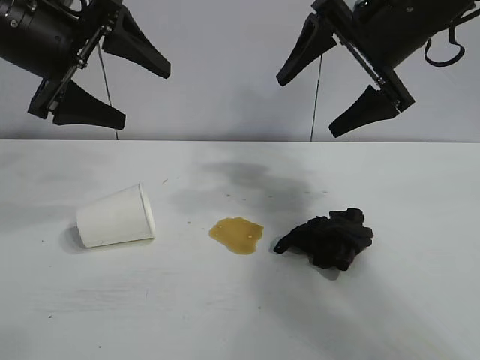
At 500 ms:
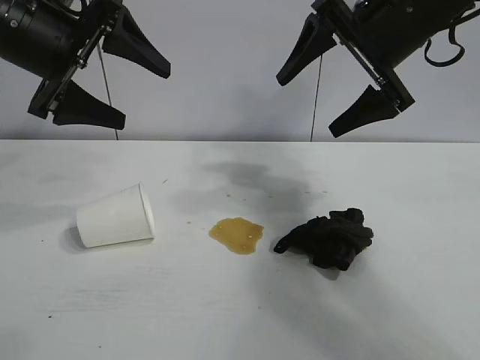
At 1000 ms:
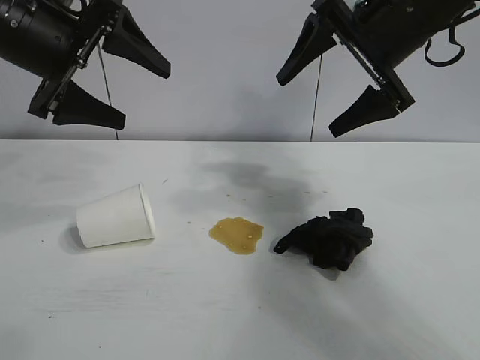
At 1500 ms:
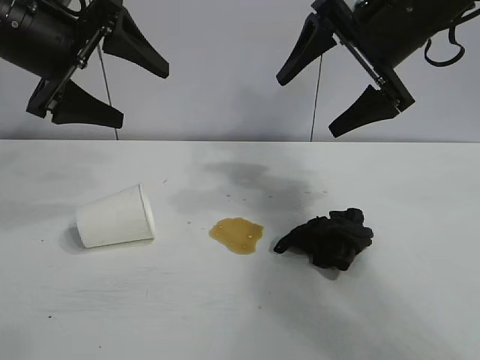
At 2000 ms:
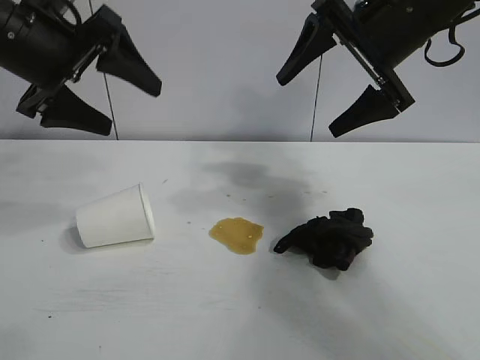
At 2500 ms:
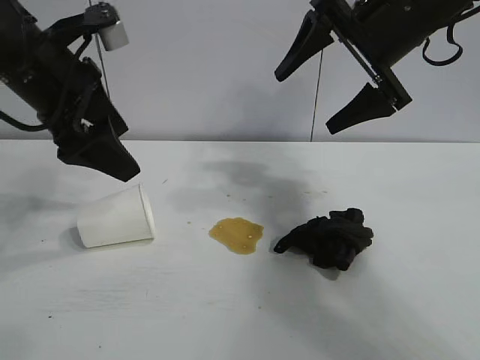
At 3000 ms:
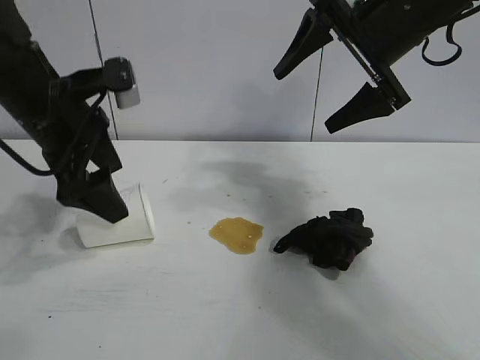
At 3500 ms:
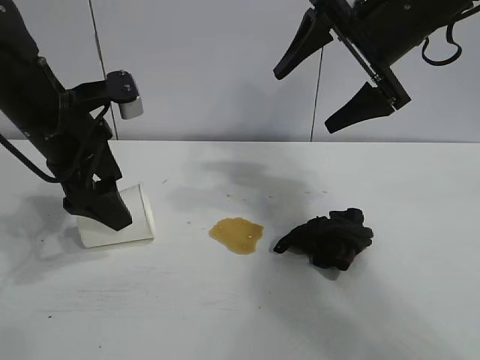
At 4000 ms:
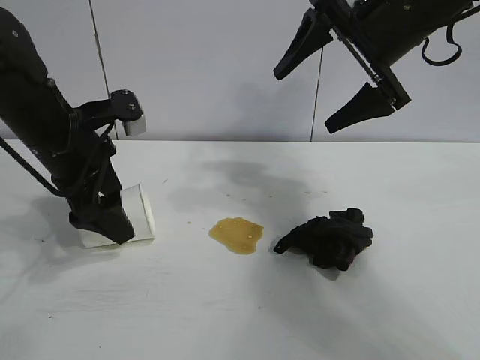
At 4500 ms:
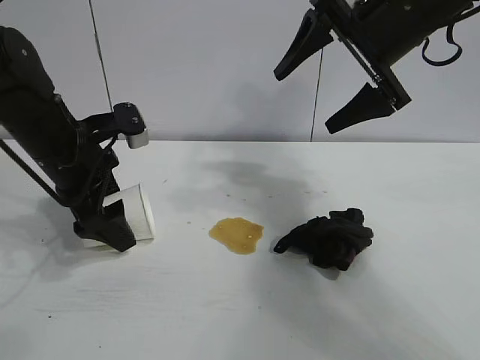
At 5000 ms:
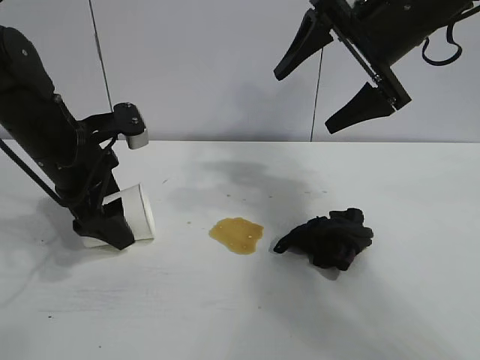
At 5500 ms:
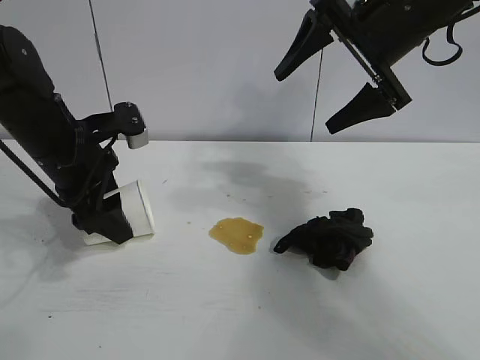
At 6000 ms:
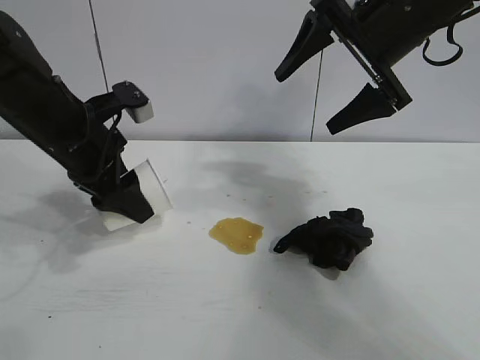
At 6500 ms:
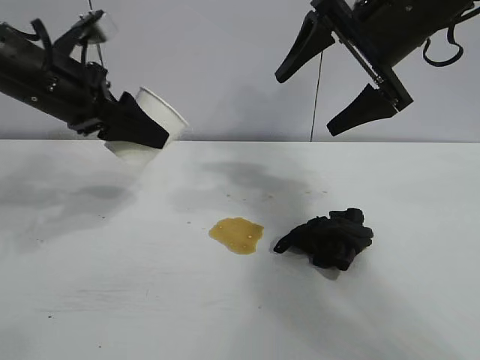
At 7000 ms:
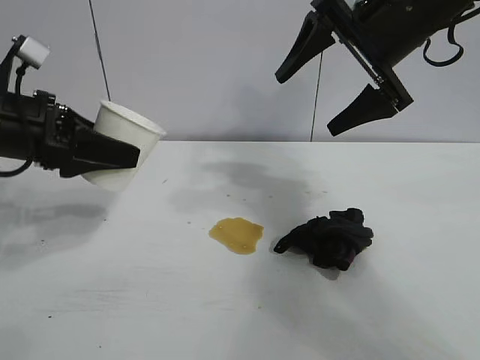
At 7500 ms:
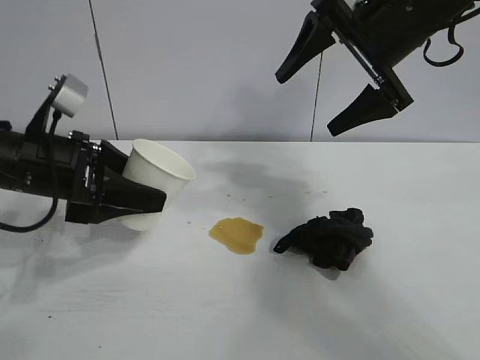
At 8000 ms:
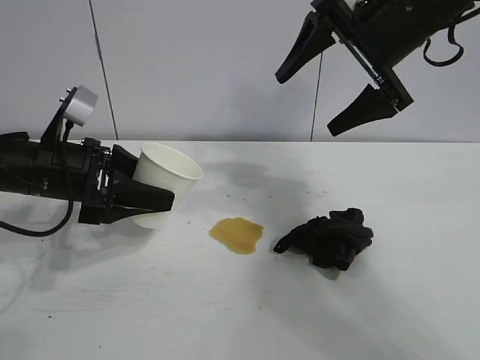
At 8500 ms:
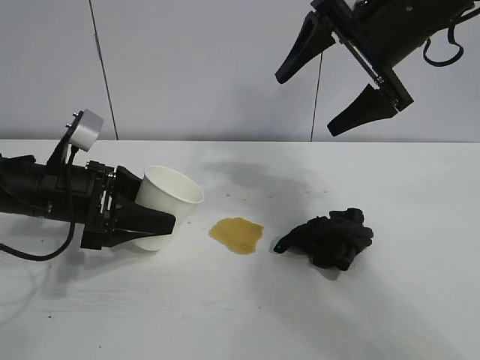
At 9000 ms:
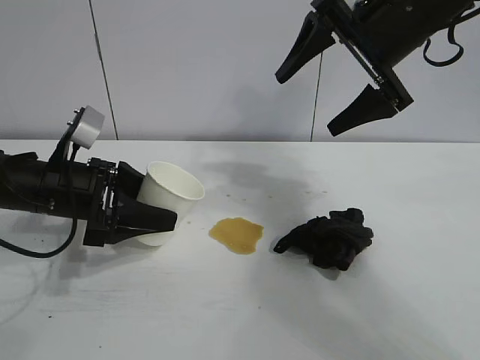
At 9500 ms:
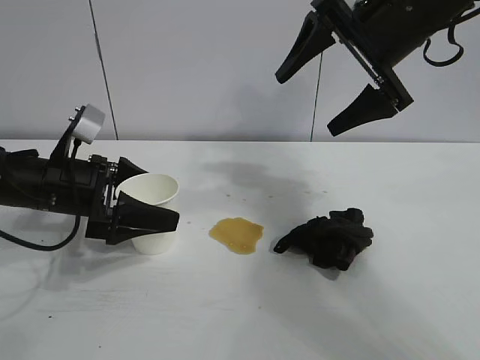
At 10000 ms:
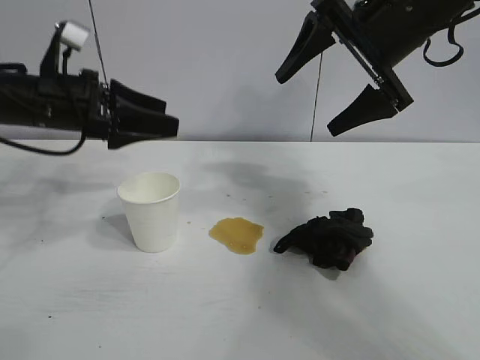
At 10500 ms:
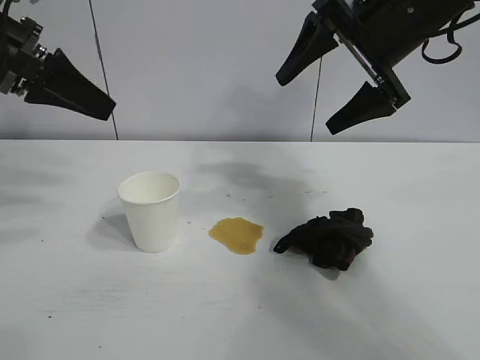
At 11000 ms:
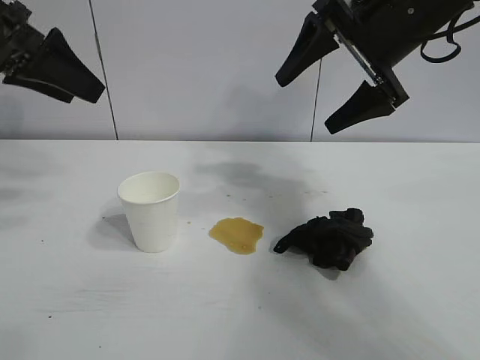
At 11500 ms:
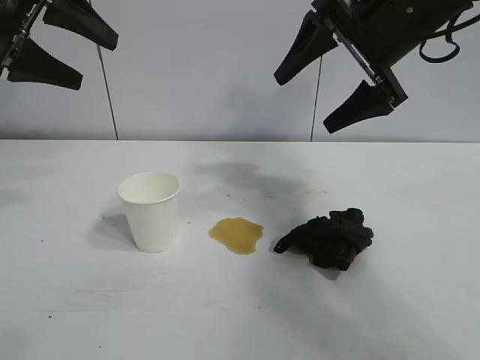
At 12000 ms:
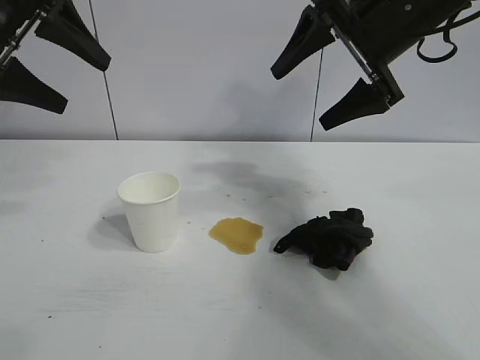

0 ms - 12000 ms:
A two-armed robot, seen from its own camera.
Task of the whole recording: the left gripper pick up the fallen cup and place it upright, the right gripper grasp the black rag and wipe the stain on the table, the right gripper put the black rag back in its original position.
Step, 1500 ms - 5000 ms: Grasp the paper cup with left gripper.
Step, 6000 ms - 9000 ms: Stand the paper cup upright with left gripper.

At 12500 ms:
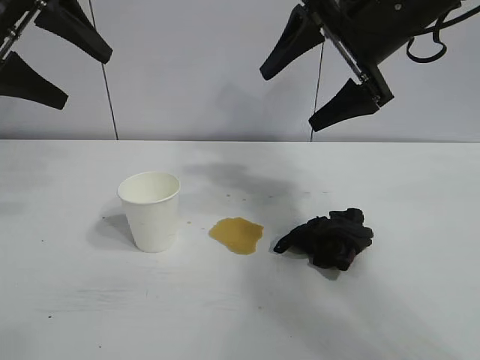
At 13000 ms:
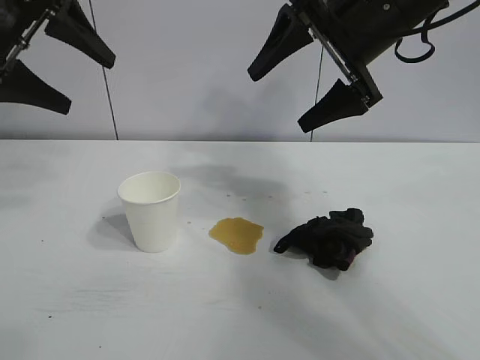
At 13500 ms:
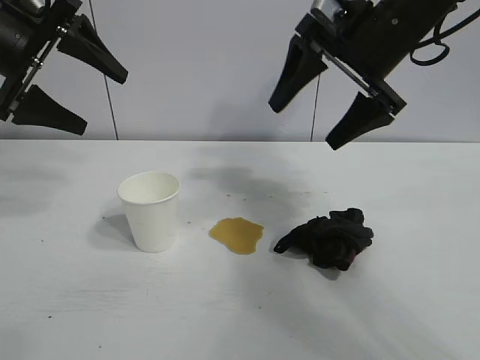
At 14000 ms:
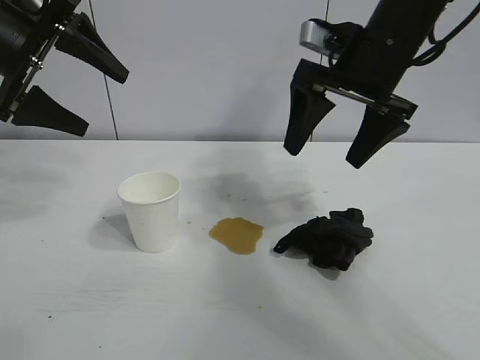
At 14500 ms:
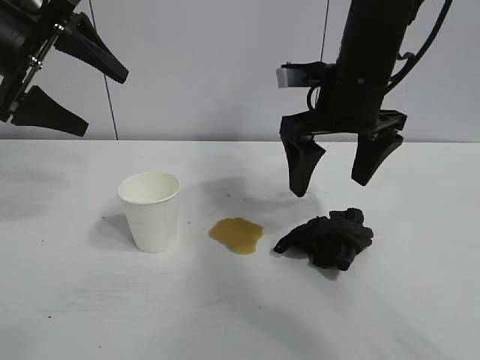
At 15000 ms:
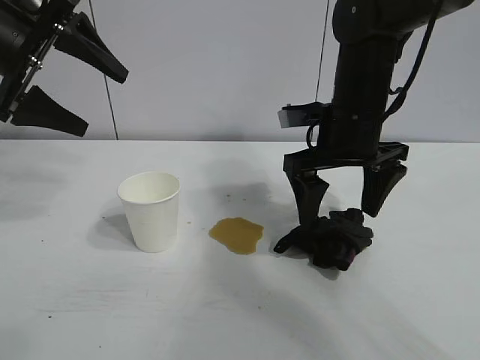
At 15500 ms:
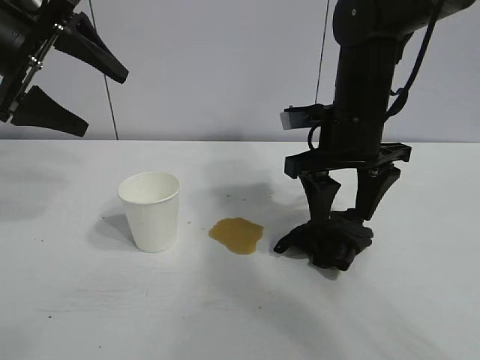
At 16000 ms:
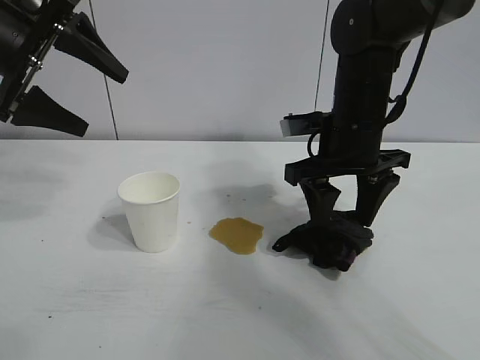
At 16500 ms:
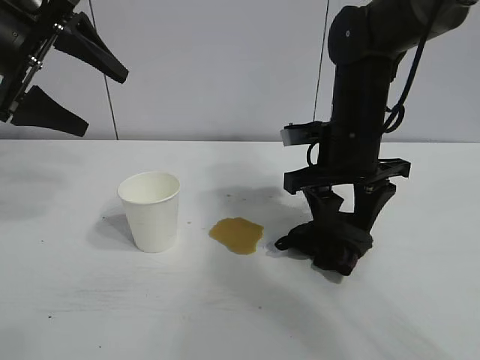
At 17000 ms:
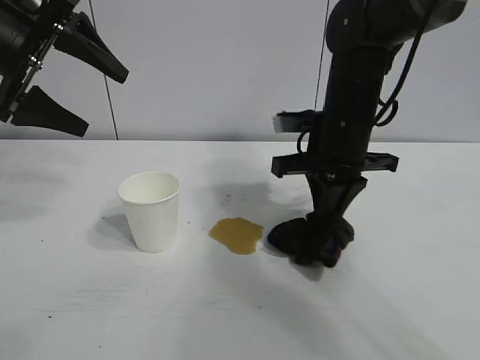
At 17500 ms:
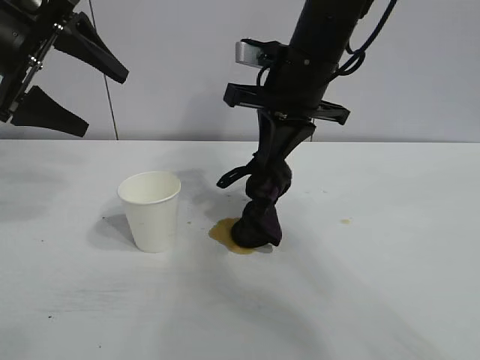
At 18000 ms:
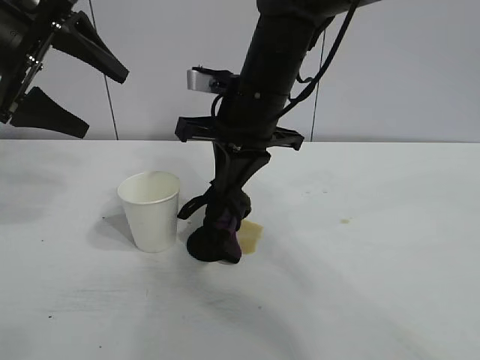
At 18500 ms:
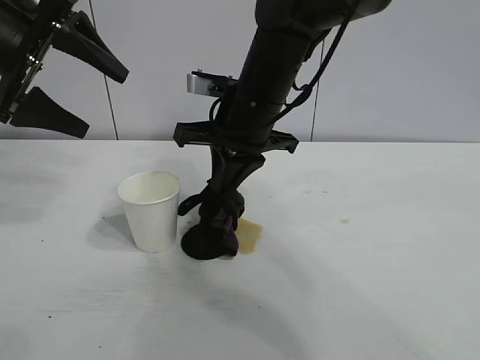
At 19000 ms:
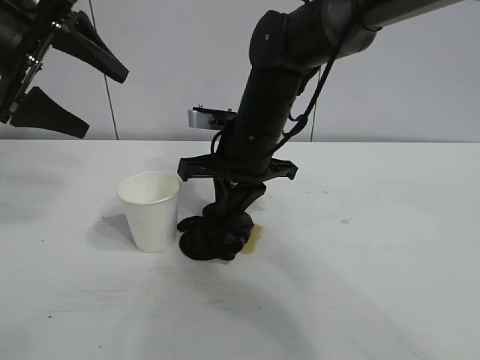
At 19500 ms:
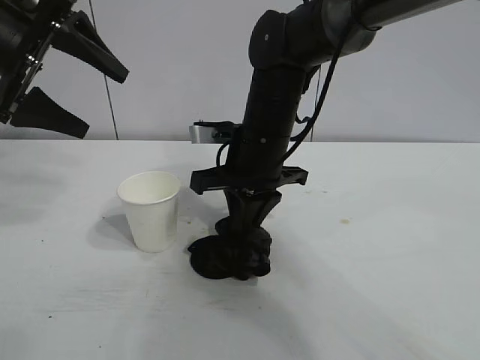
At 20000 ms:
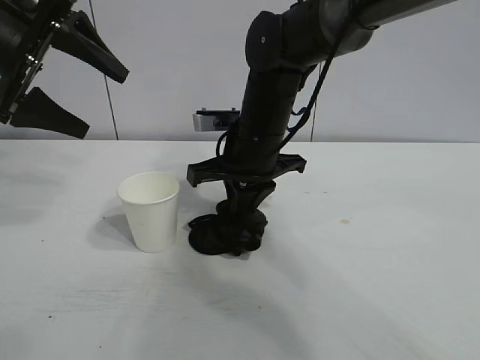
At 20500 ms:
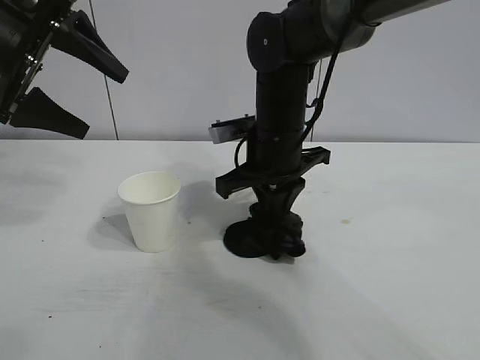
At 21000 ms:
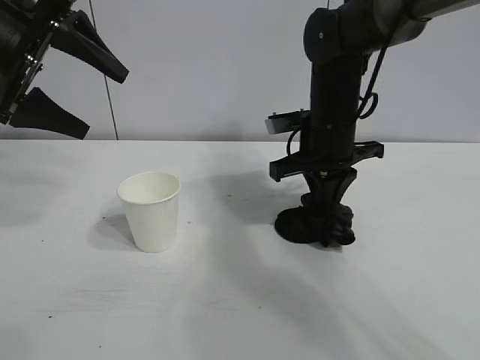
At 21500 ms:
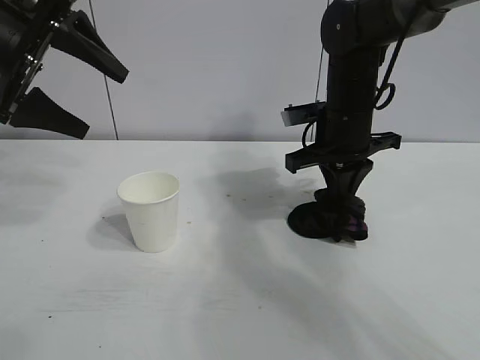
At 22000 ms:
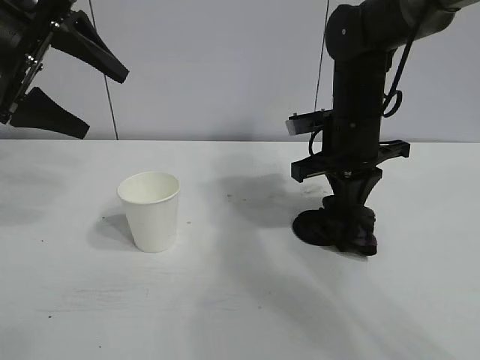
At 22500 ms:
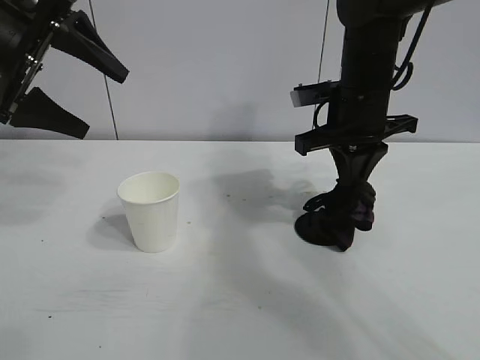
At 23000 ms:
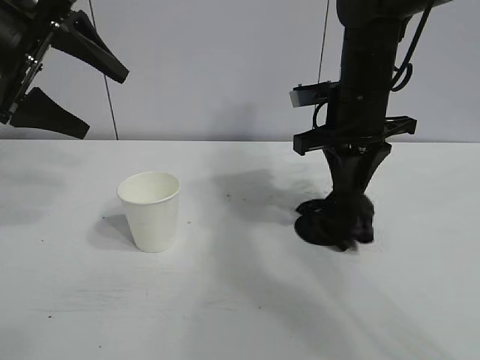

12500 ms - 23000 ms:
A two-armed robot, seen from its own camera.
Task of the whole recording: the left gripper pick up the fallen cup and place it upright, the right gripper grasp the black rag and wipe the stain on the table, the right gripper put the black rag back in its original position.
Step, 12500 ms - 16500 ms: Grasp the rag with right gripper.
Step, 17000 ms - 21500 ms: Wipe the stains off the table with the rag with right gripper.
Step, 22000 ms - 23000 ms: Place the rag on the table with right gripper.

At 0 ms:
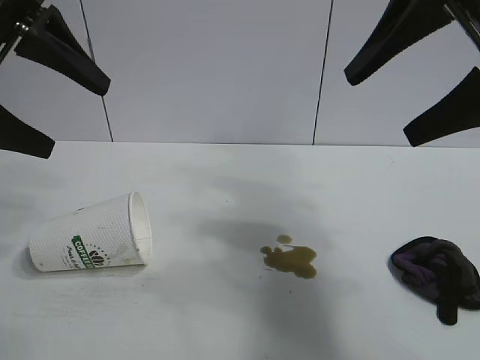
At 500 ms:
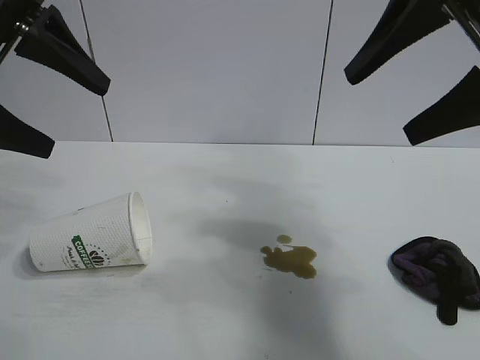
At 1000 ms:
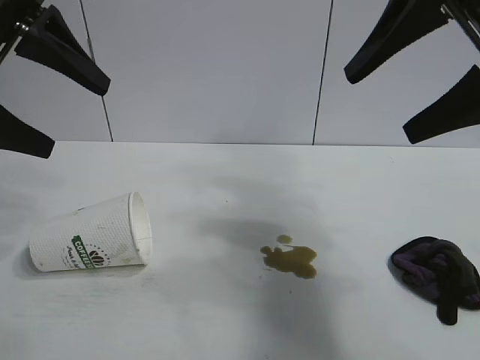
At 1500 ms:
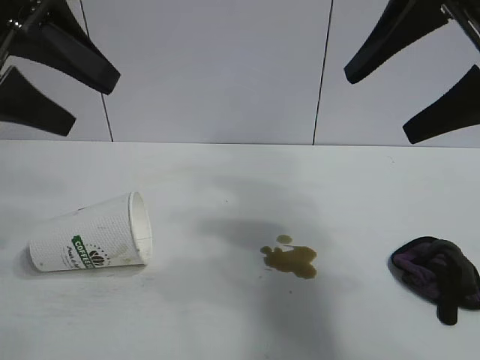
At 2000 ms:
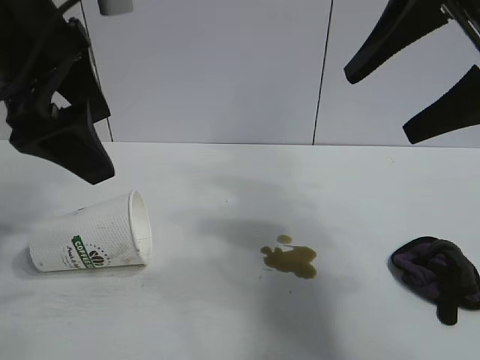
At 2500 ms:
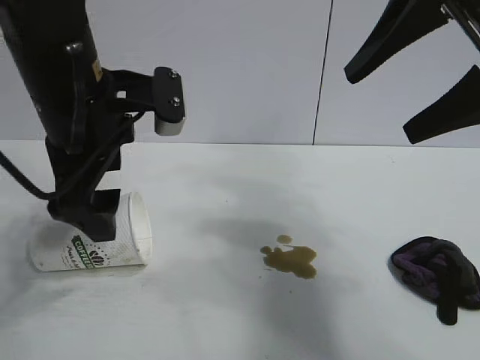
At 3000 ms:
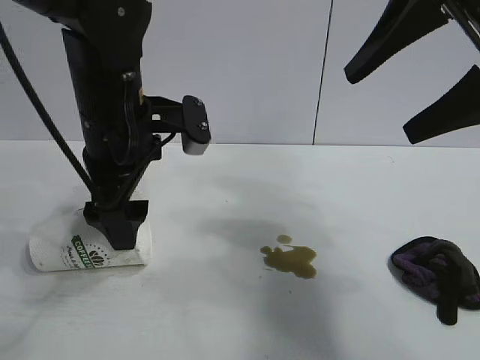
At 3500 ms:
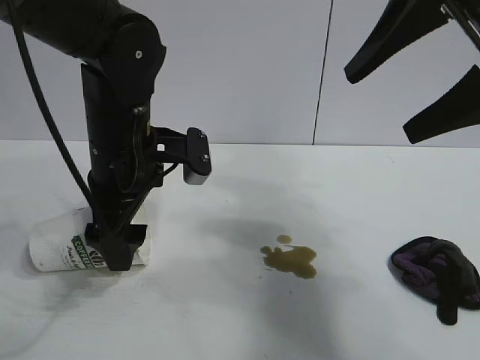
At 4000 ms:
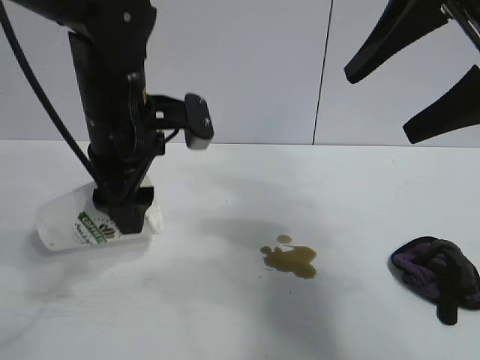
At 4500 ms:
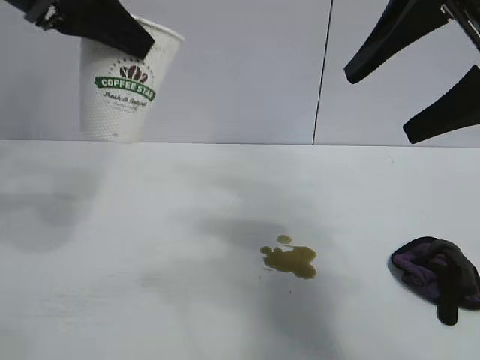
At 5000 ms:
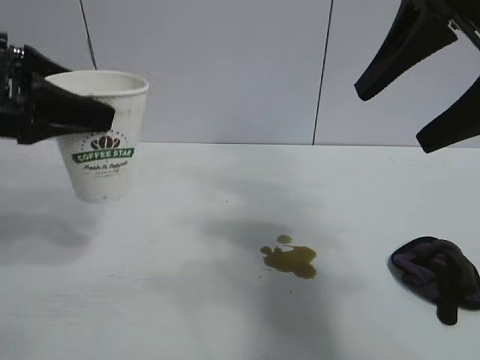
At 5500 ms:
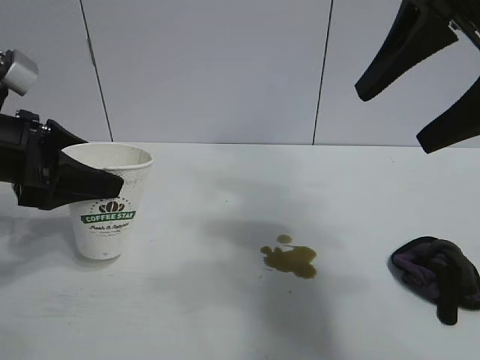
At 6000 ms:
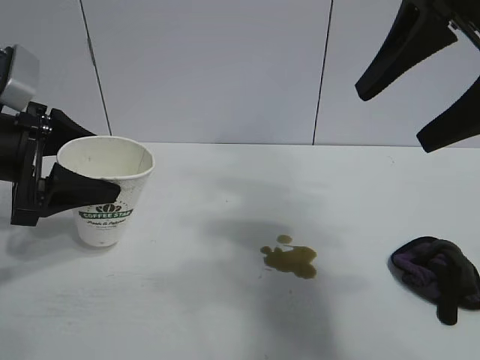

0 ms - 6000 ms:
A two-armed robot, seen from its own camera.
Task of the whole recording: the left gripper pick up the fallen cup and place it upright, the right gripper grasp the black rag and wipe the stain on the table, the right gripper put the black rag back in its original position.
Step, 500 ms - 3500 ms: Grasp the paper cup with left gripper.
